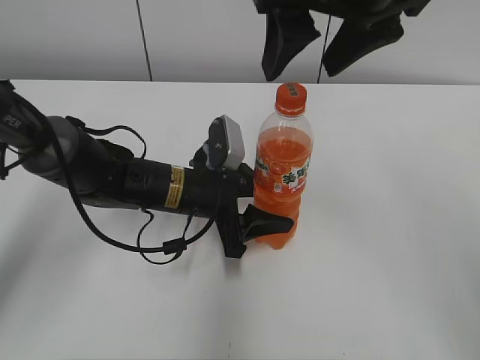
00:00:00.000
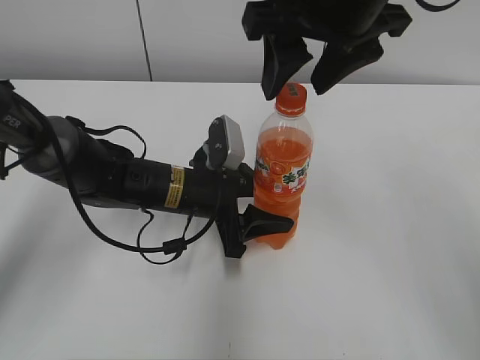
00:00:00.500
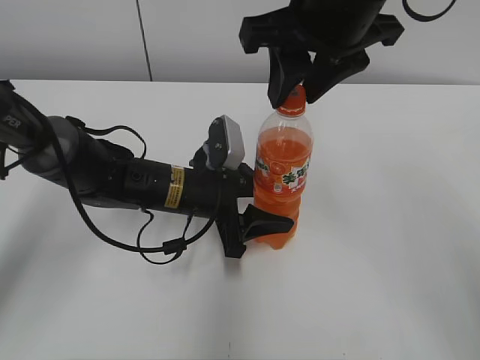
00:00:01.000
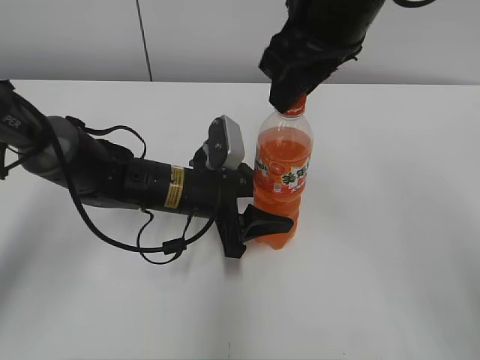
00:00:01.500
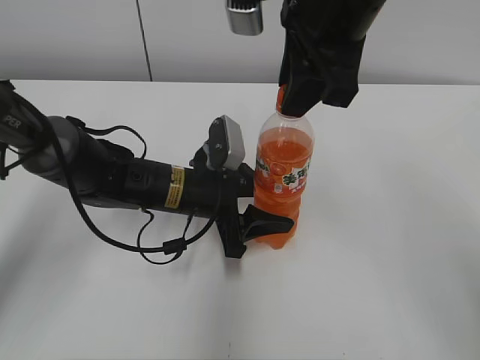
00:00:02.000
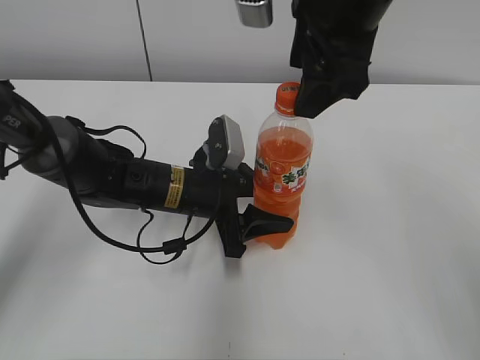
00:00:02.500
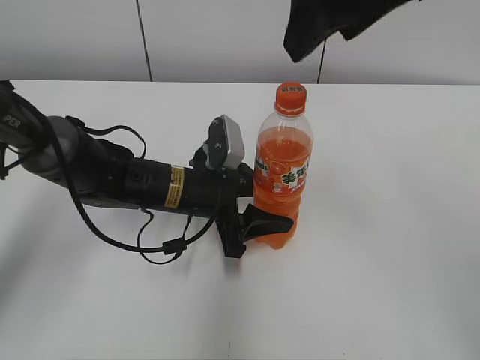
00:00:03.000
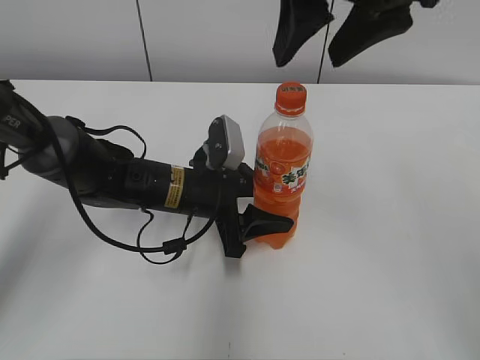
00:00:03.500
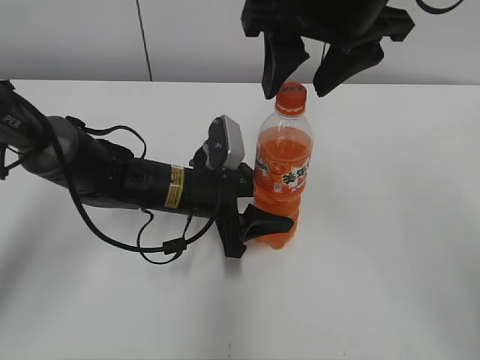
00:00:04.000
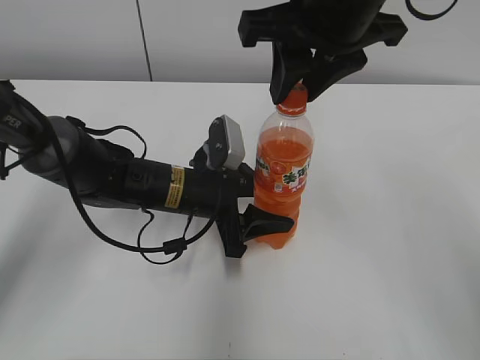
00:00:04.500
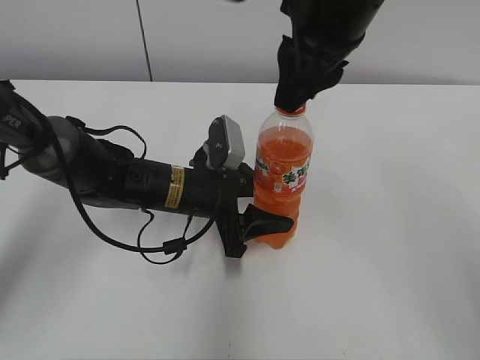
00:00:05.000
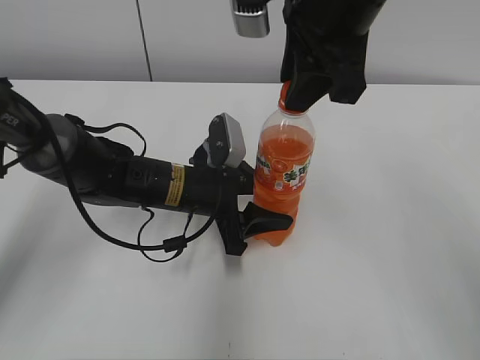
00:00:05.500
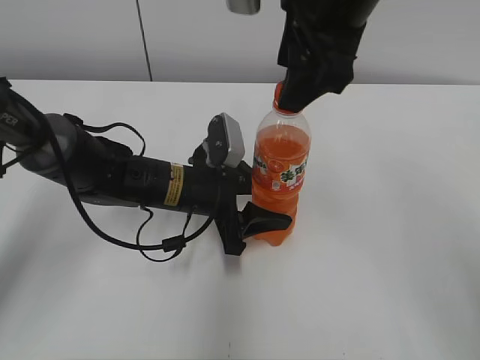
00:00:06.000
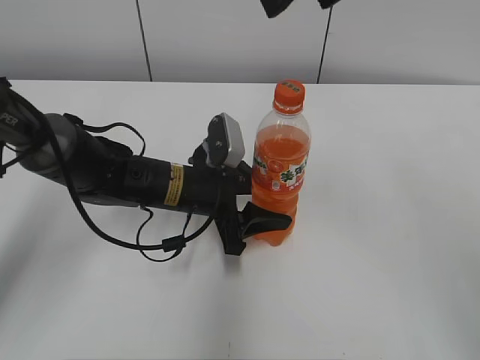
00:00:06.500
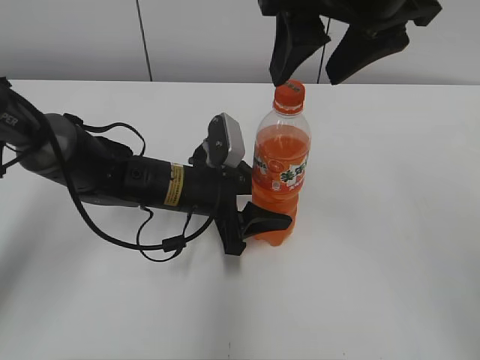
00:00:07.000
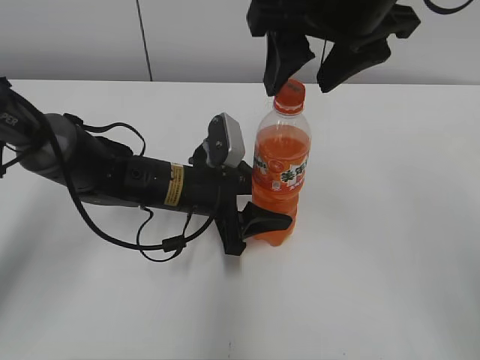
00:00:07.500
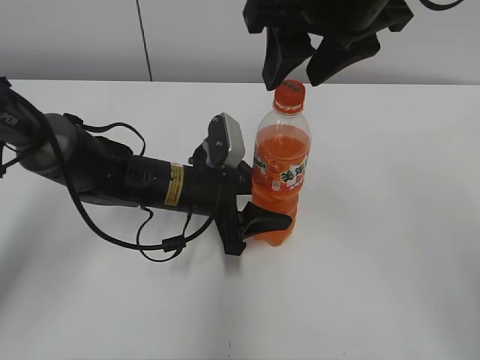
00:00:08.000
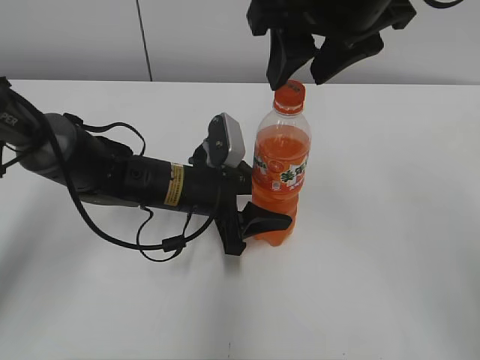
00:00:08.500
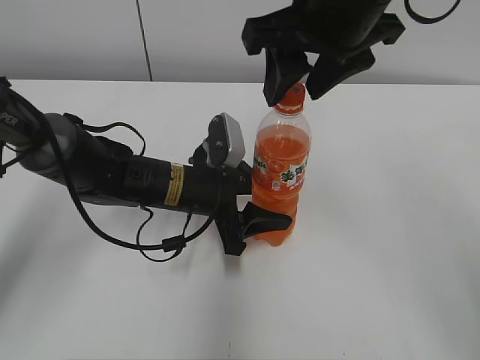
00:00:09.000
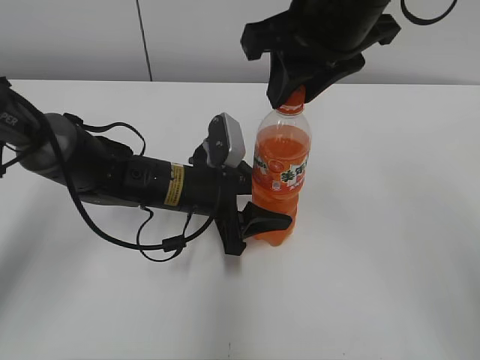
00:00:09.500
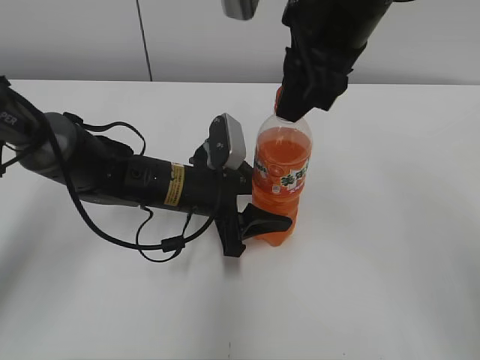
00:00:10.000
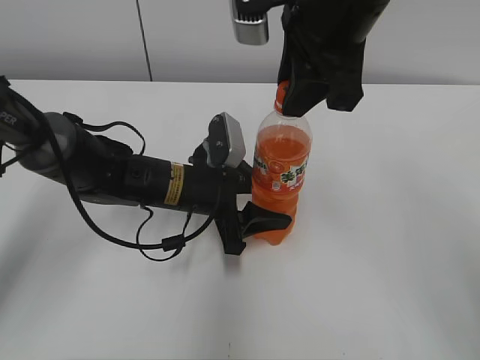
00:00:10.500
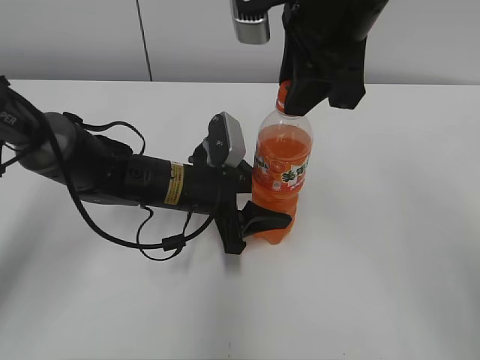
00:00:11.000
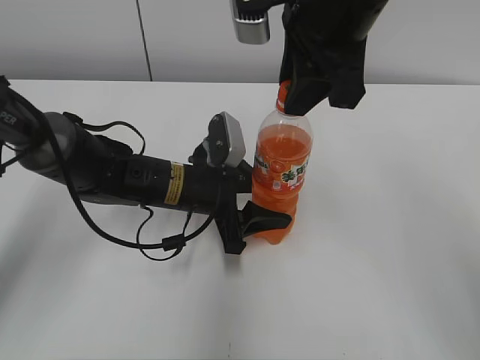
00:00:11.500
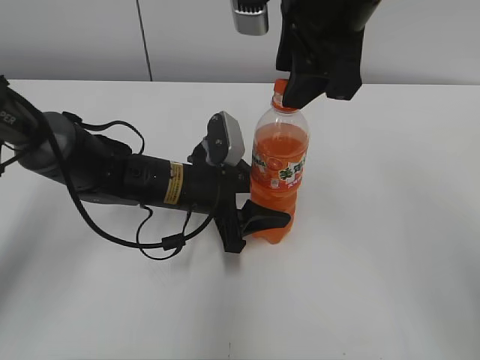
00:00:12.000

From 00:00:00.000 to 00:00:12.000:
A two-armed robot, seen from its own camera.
From 00:00:00.000 to 00:00:02.000: The right gripper closes up.
From 00:00:02.000 to 00:00:04.000: The right gripper opens.
From 00:00:04.000 to 00:00:06.000: The right gripper closes, then opens again.
From 00:00:08.000 to 00:00:10.000: The right gripper closes its fingers.
From 00:00:10.000 to 00:00:12.000: The right gripper opens up.

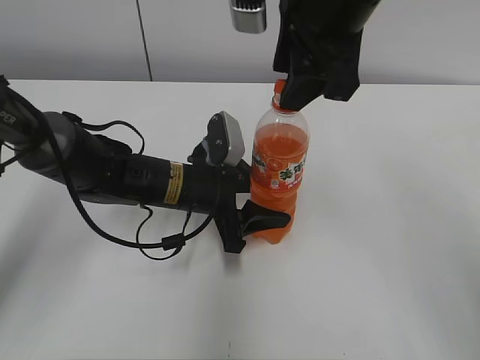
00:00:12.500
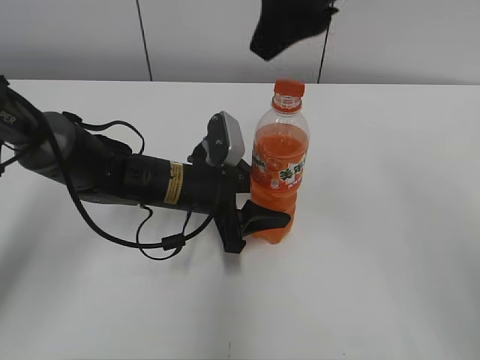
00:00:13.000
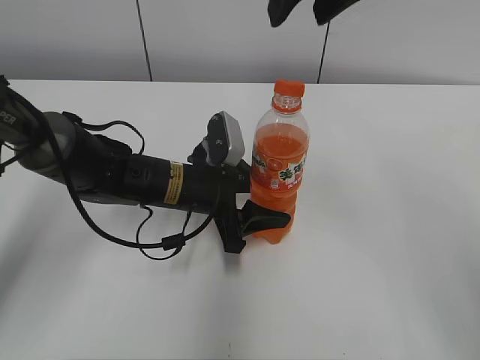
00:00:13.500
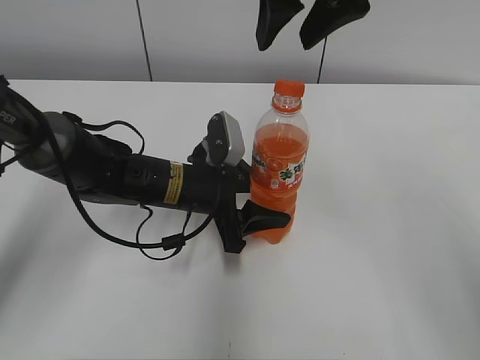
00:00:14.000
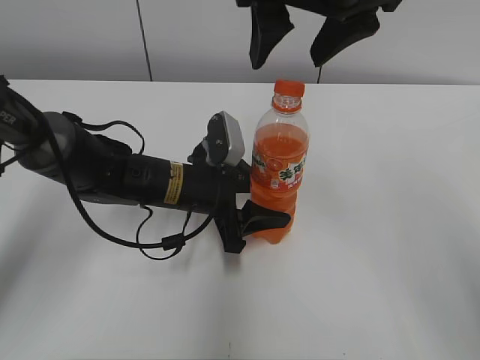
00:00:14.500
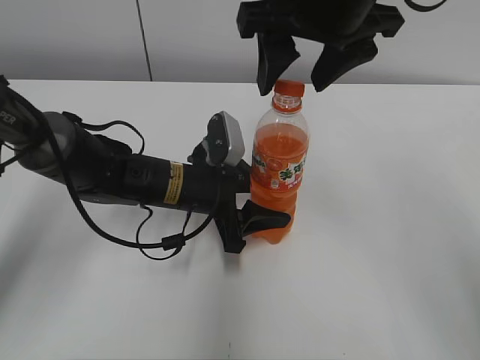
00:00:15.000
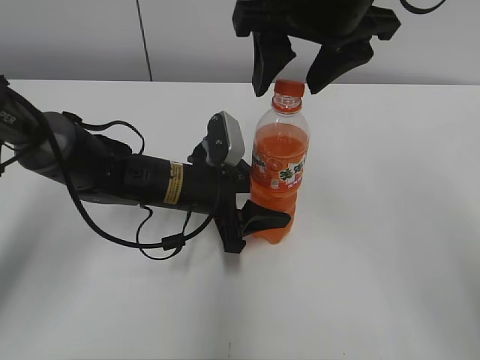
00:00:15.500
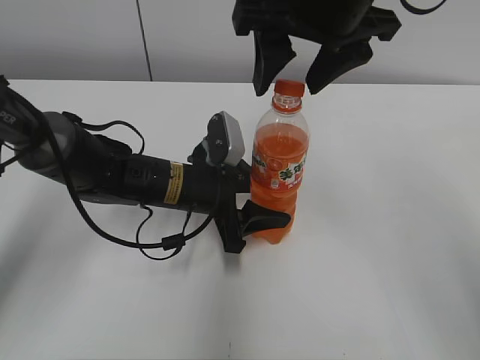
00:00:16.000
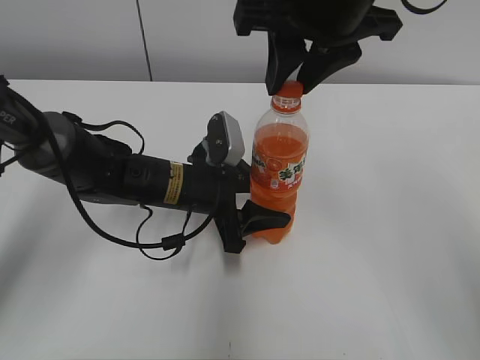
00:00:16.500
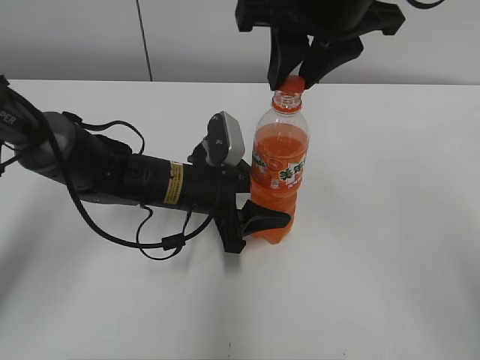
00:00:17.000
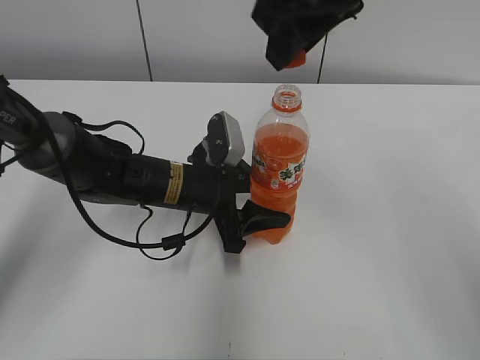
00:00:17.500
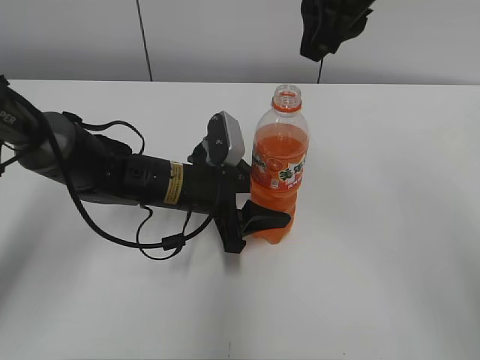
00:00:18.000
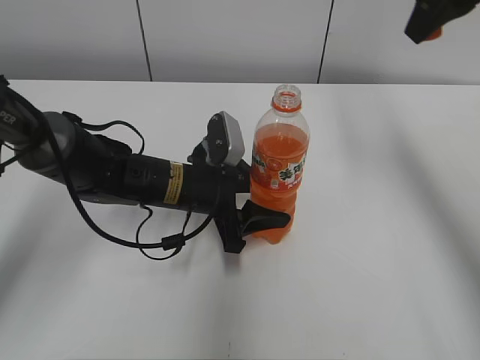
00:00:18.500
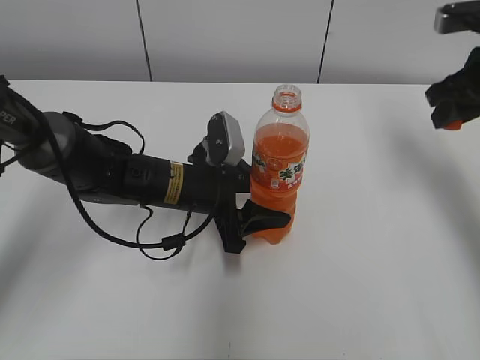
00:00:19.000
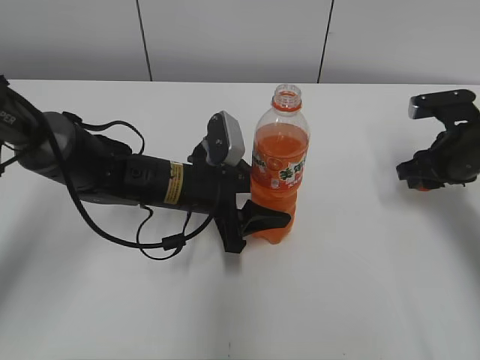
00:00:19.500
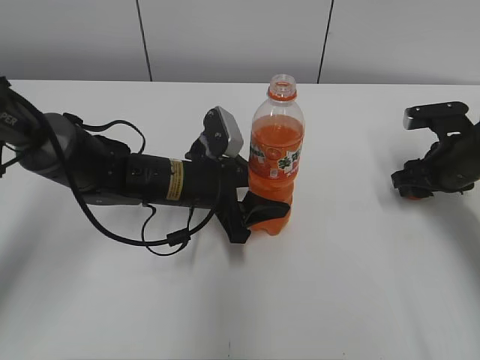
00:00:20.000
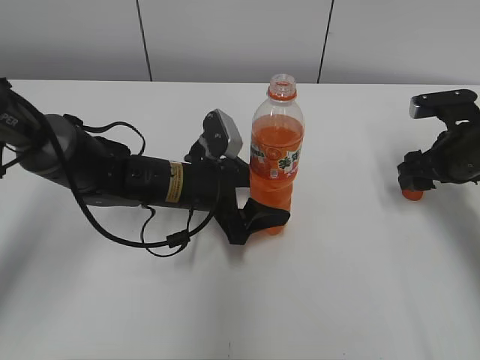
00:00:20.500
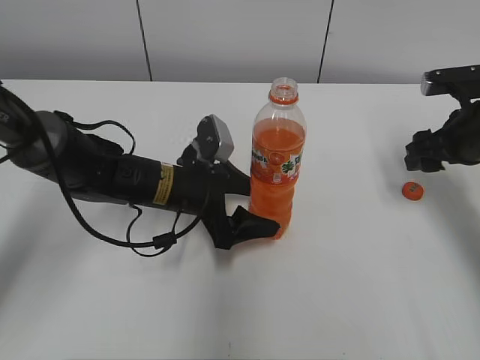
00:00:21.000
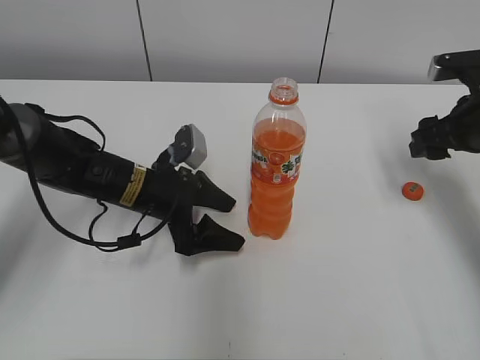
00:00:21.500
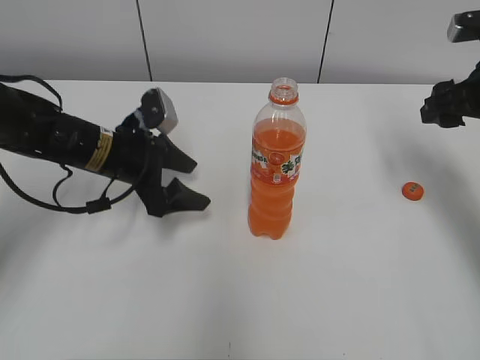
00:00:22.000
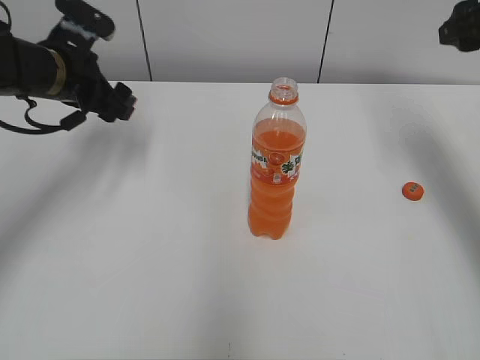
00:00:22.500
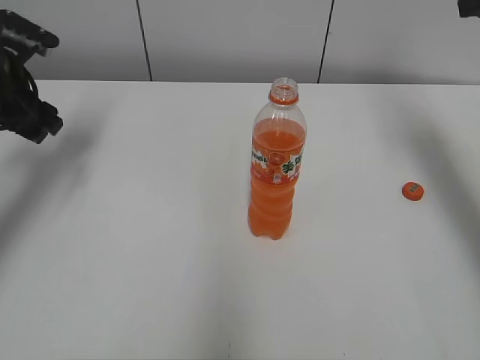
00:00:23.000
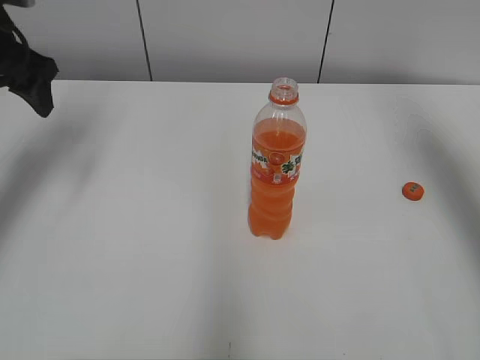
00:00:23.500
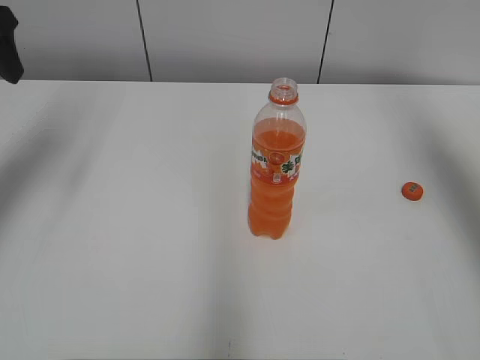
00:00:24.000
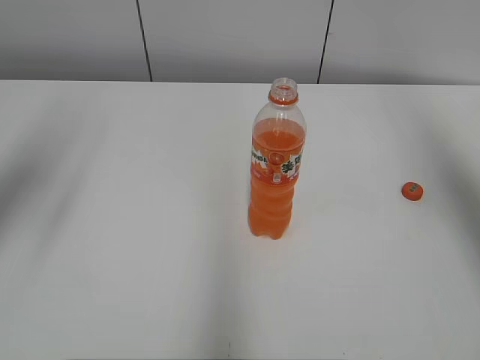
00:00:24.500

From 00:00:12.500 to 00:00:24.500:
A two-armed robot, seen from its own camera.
Step, from 00:00:12.500 to 00:00:16.500: Twist the bottle cap with the right hand.
From 00:00:12.500 to 00:00:14.500: The right gripper opens.
From 00:00:14.500 to 00:00:16.500: The right gripper closes up.
From 00:00:16.500 to 00:00:18.500: The right gripper goes about 15 cm to the right and forward.
From 00:00:18.500 to 00:00:20.500: The right gripper shifts approximately 25 cm downward, and opens its fingers. Meanwhile the left gripper opens.
From 00:00:20.500 to 00:00:22.500: The left gripper heads to the left, upward and forward, covering some 20 cm, while the right gripper is displaced upward by about 15 cm.
From 00:00:22.500 to 00:00:24.500: The right gripper heads upward and backward, covering roughly 15 cm, while the left gripper heads upward, backward and to the left, covering approximately 20 cm.

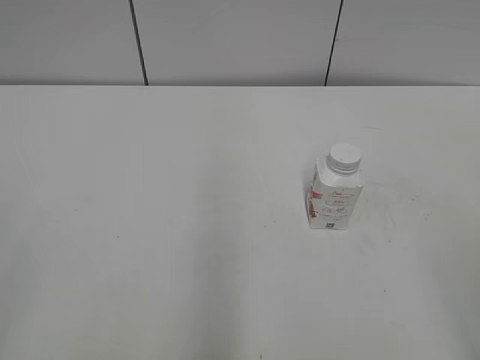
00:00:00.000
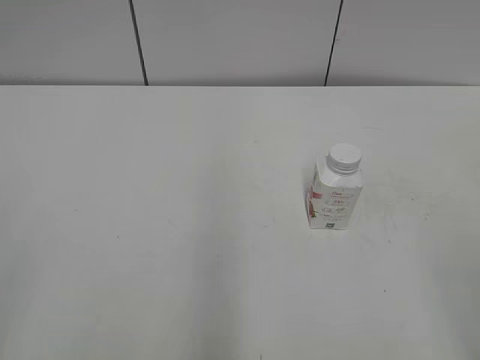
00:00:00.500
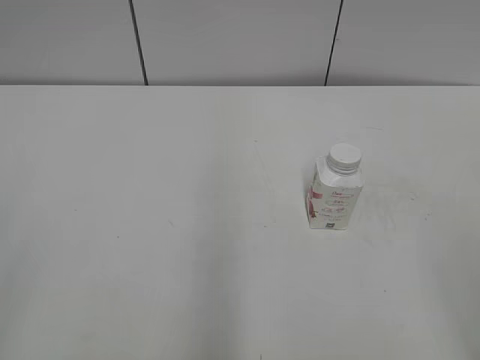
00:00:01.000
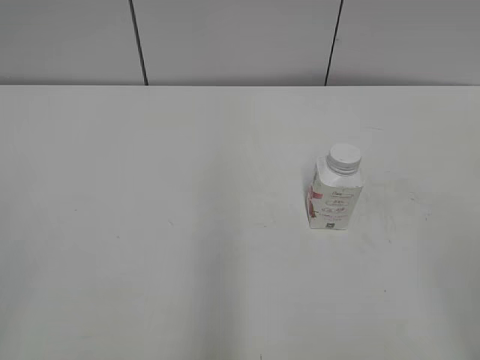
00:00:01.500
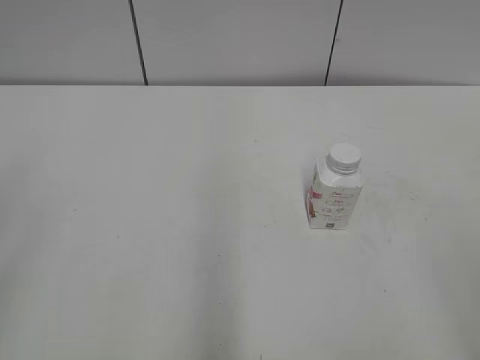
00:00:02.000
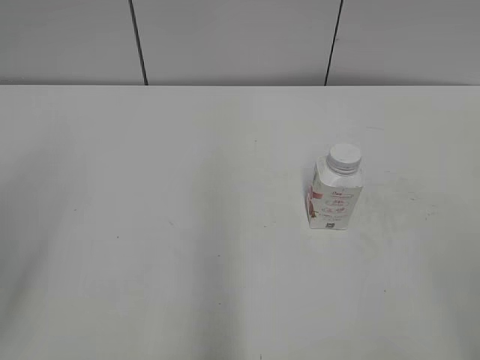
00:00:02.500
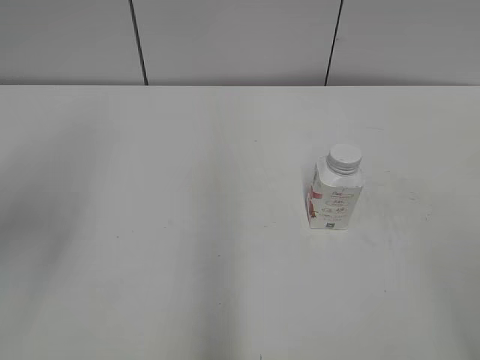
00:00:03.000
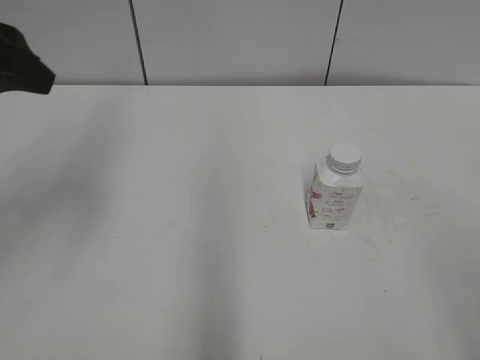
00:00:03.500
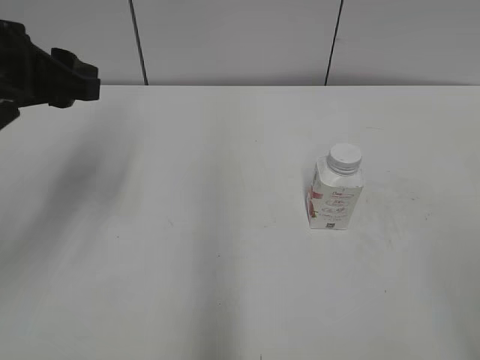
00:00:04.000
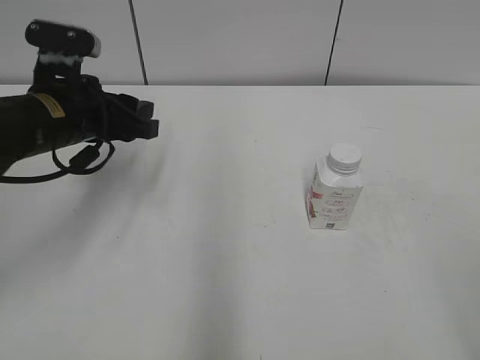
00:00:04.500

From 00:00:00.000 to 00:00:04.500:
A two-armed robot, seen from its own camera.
From 00:00:02.000 to 00:00:04.500: The left gripper moves forward, downward and to the right, roughly 30 cm.